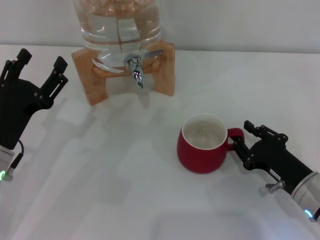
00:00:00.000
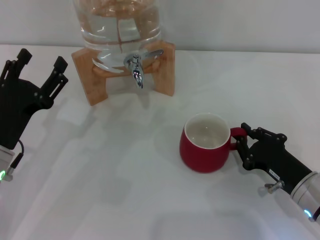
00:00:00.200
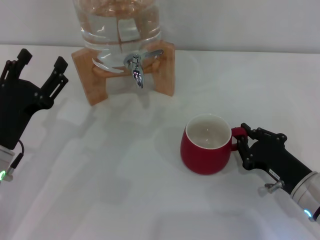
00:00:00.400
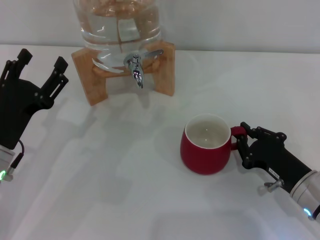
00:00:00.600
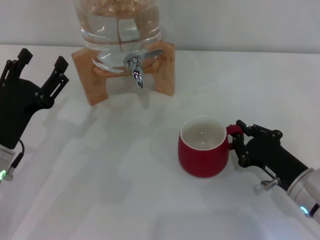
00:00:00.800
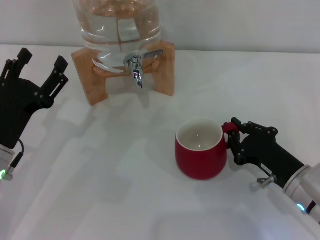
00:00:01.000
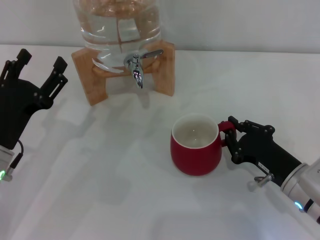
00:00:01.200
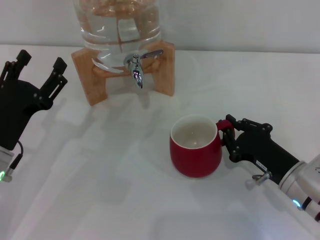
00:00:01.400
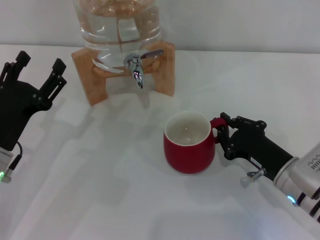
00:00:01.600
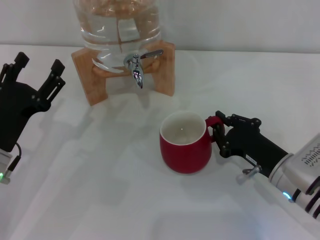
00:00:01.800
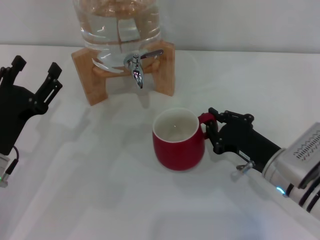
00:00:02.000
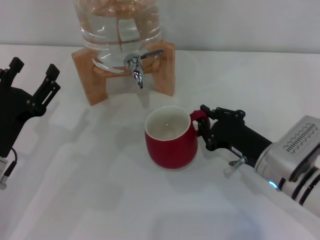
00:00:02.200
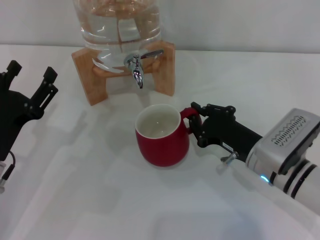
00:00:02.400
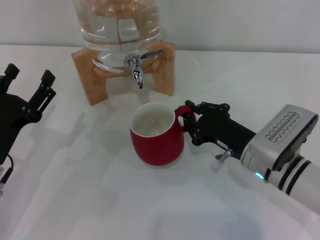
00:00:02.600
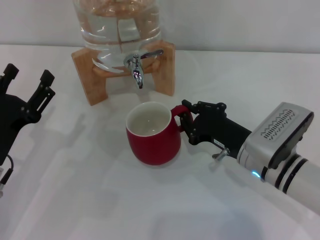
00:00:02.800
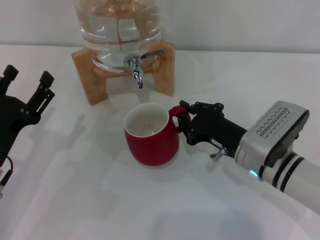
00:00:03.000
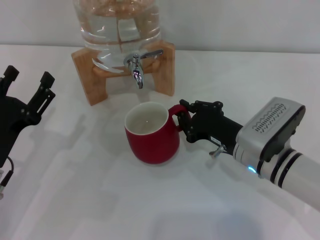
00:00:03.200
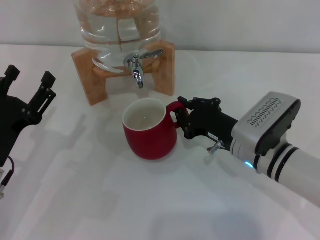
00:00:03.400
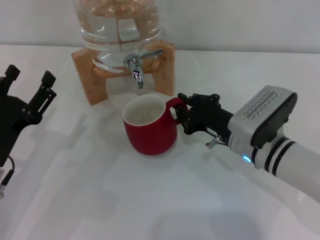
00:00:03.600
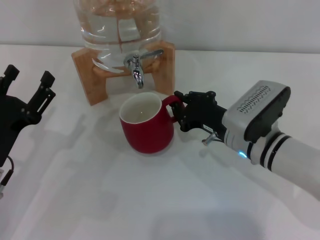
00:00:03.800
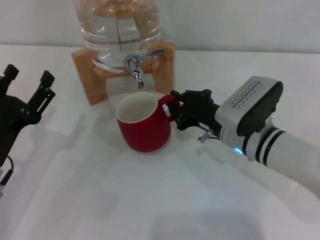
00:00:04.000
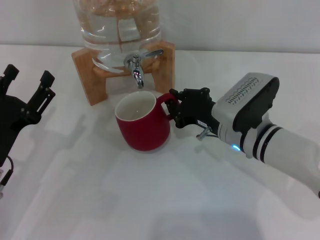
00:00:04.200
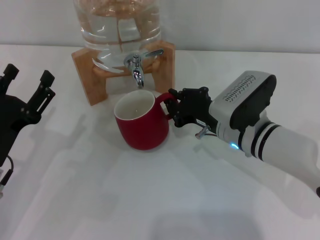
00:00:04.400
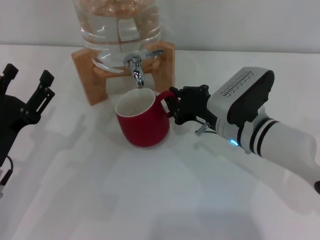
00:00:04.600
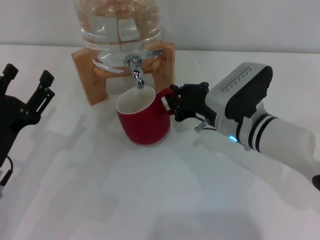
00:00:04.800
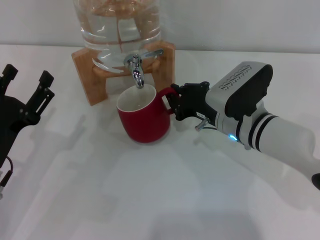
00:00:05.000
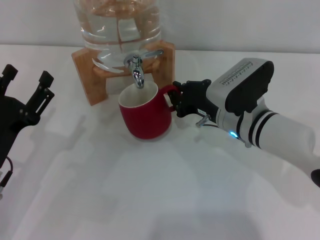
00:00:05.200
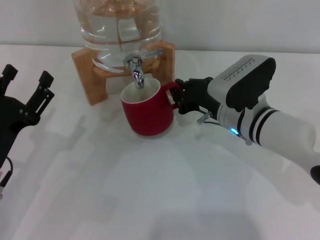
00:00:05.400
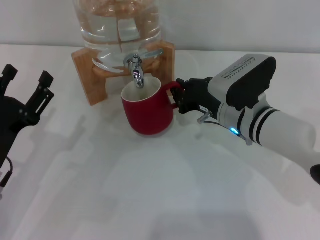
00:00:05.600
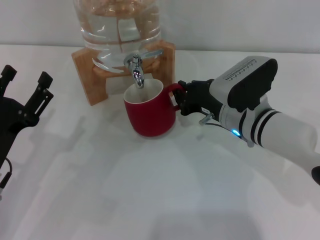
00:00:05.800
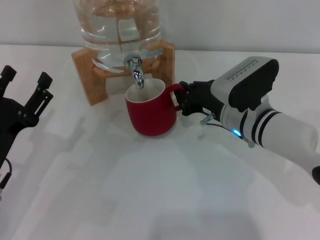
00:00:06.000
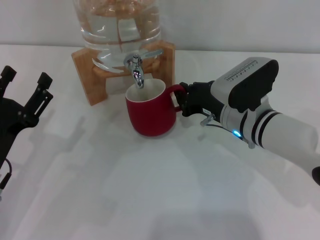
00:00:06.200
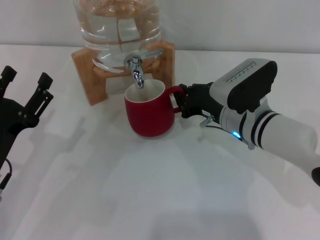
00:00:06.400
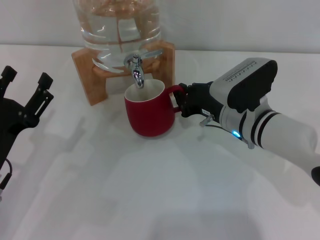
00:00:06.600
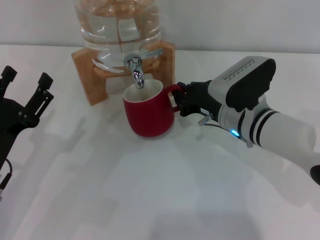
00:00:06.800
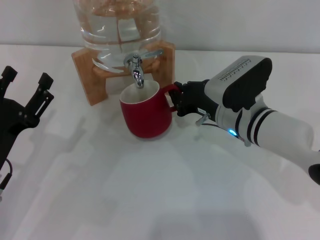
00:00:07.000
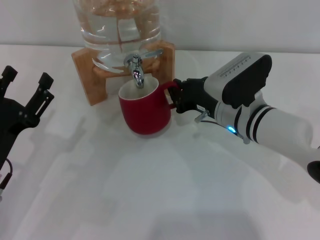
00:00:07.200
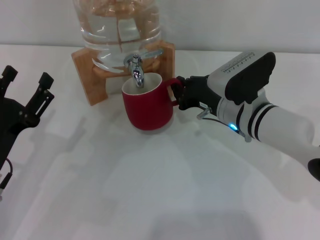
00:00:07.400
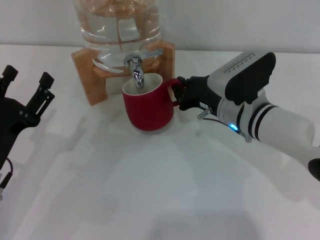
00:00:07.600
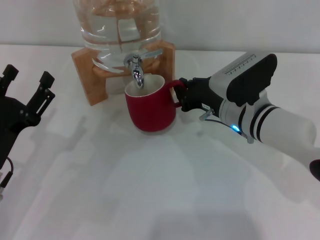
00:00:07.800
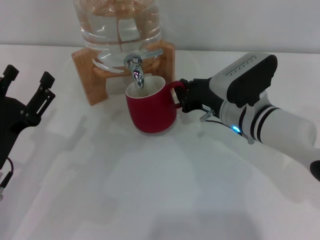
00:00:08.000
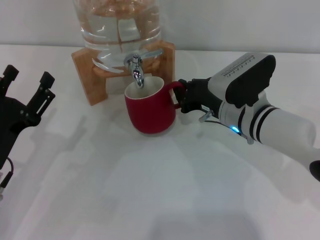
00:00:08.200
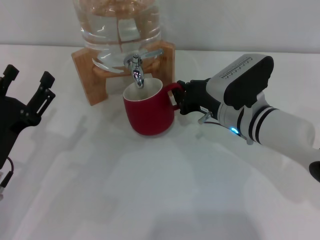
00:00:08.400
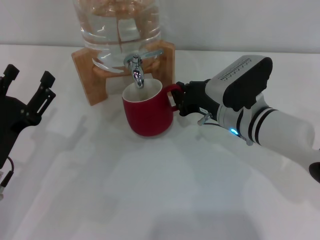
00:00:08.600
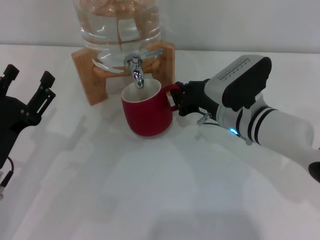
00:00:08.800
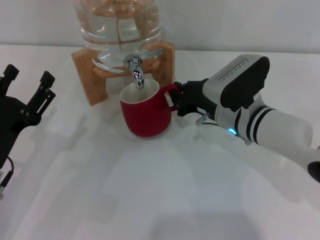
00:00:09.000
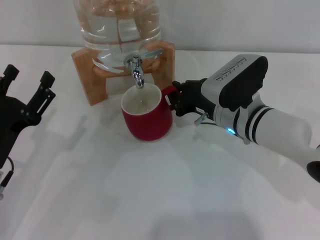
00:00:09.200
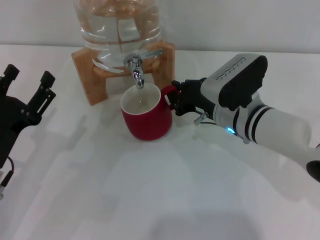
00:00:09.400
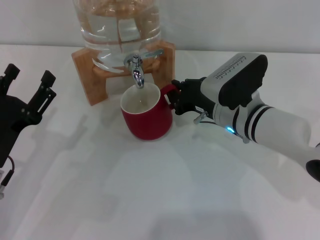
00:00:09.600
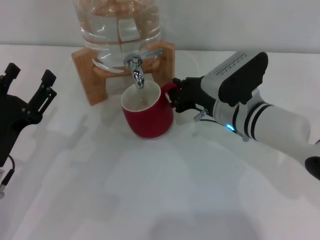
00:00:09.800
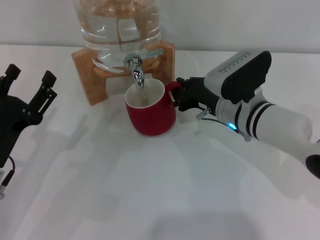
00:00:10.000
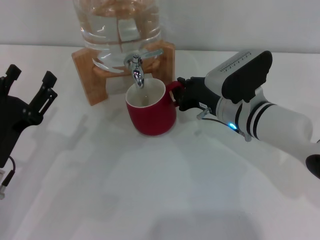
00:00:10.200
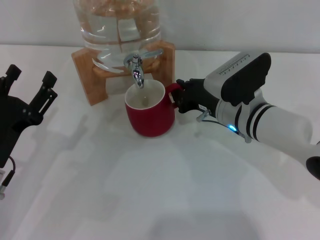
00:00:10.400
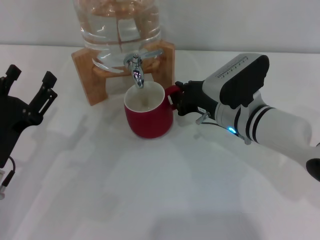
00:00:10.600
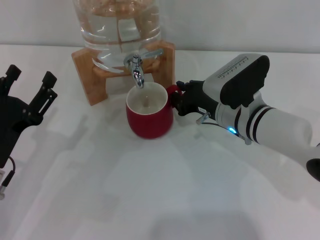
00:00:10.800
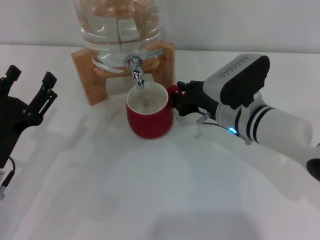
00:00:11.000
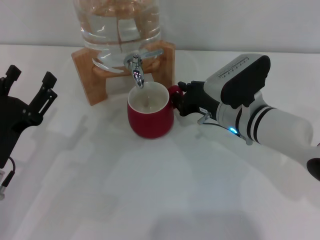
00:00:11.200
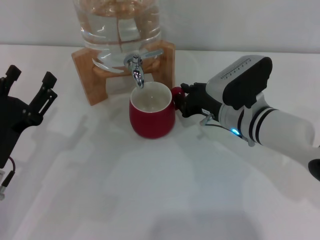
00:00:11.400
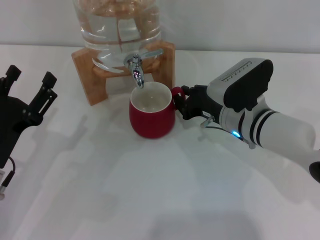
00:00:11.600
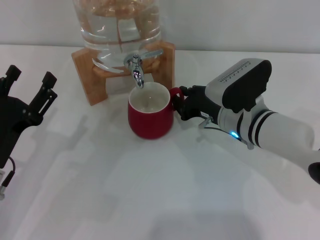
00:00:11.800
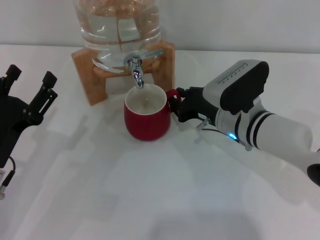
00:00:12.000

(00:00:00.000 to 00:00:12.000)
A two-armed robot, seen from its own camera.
Task of the whole recording: the right gripper pick up the red cup and place it horizontally under the faucet, the left gripper turn on the faucet to fill the cup, and then turn off the faucet.
00:00:00.000 - 00:00:01.600: The right gripper closes up.
00:00:01.600 - 00:00:03.000: The right gripper moves to the left, about 5 cm.
00:00:03.000 - 00:00:04.400: The right gripper shifts by roughly 5 cm.
00:00:04.400 - 00:00:06.000: The grippers move only a little.
00:00:06.000 - 00:00:09.000: Neither gripper changes place.
00:00:09.000 - 00:00:12.000: The two grippers keep their place.

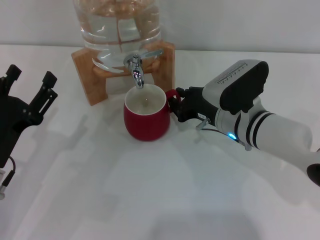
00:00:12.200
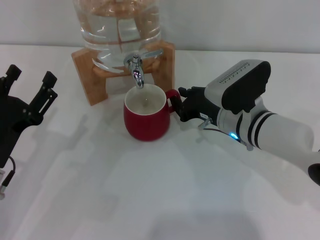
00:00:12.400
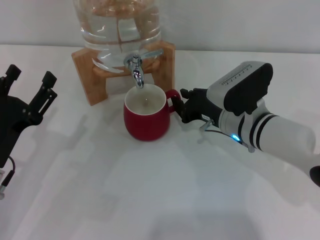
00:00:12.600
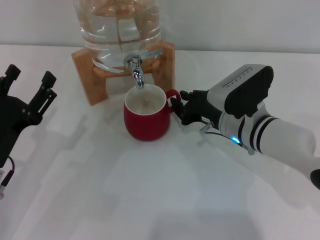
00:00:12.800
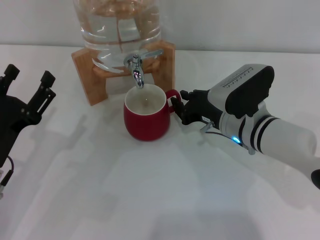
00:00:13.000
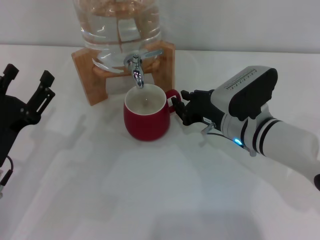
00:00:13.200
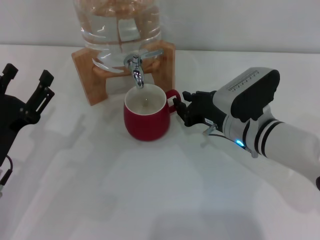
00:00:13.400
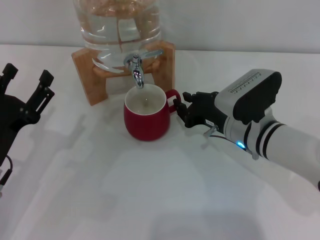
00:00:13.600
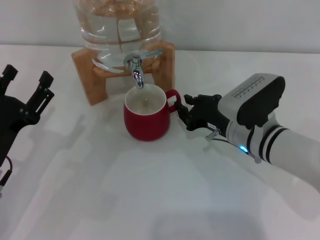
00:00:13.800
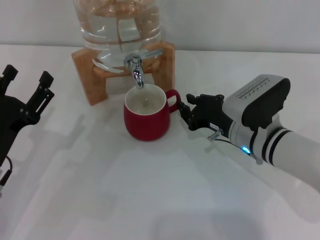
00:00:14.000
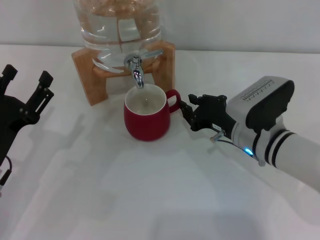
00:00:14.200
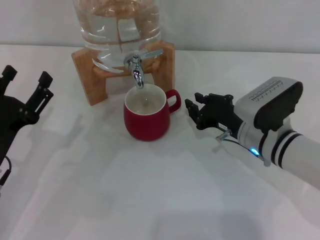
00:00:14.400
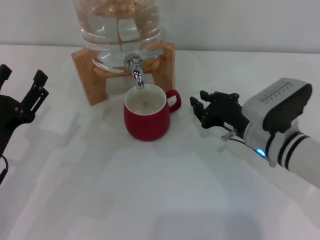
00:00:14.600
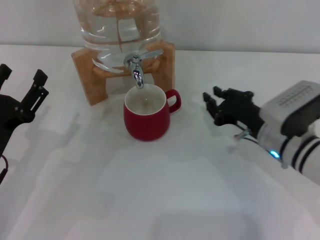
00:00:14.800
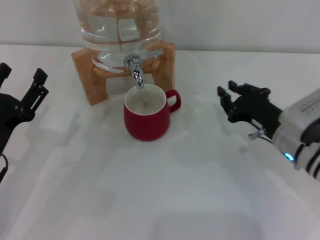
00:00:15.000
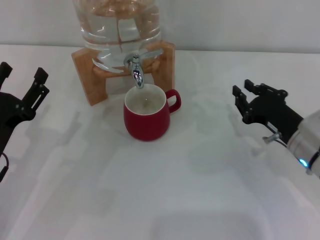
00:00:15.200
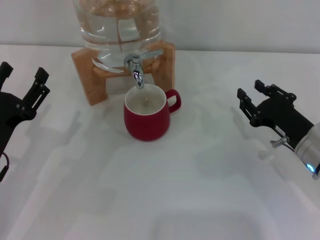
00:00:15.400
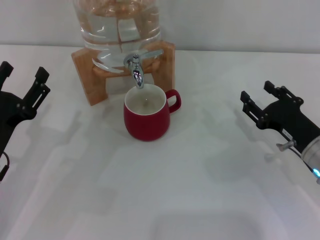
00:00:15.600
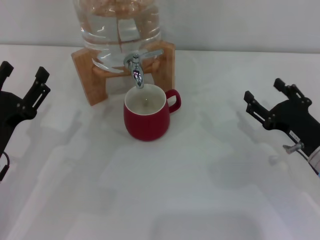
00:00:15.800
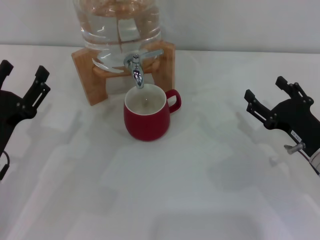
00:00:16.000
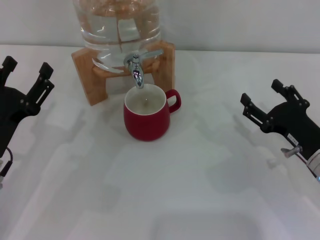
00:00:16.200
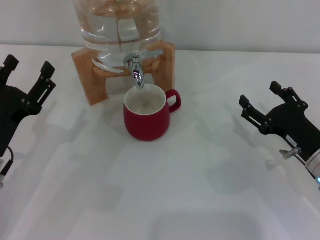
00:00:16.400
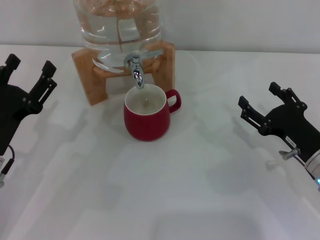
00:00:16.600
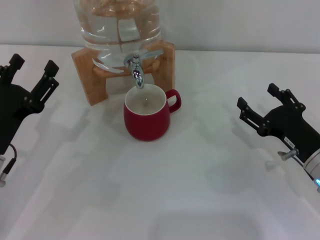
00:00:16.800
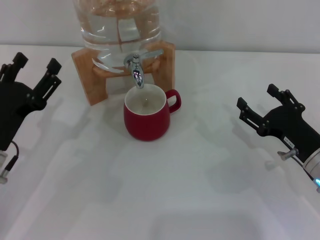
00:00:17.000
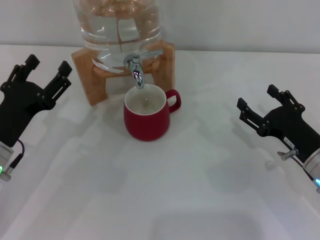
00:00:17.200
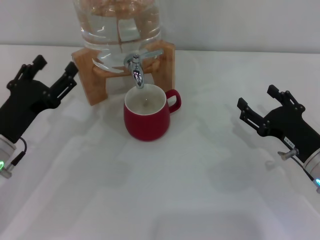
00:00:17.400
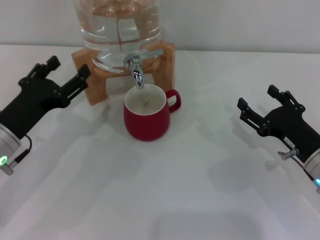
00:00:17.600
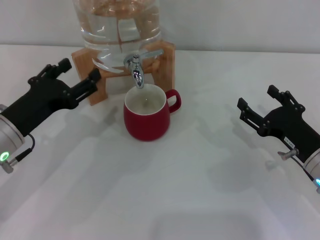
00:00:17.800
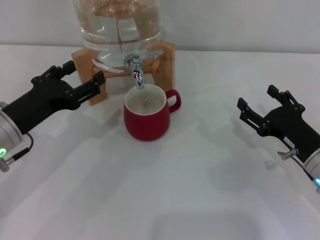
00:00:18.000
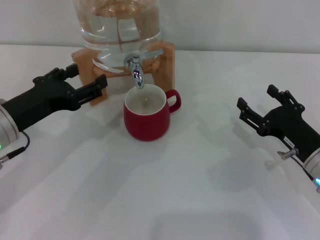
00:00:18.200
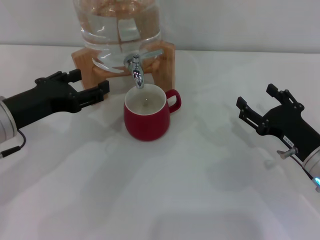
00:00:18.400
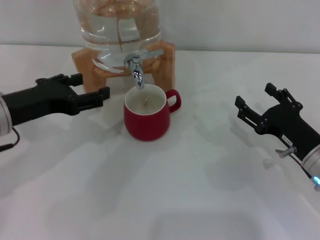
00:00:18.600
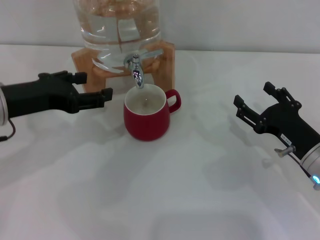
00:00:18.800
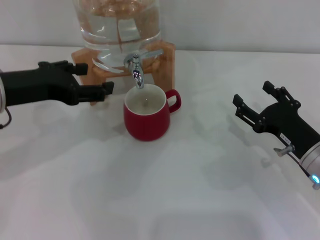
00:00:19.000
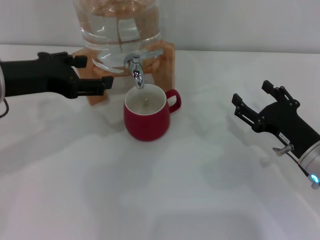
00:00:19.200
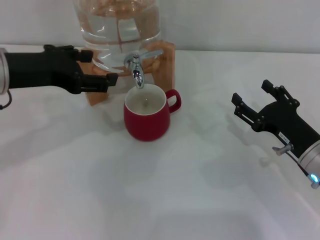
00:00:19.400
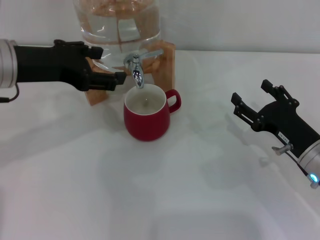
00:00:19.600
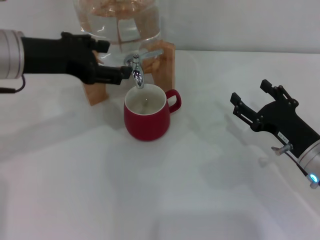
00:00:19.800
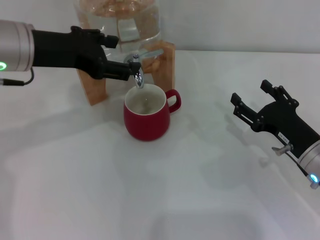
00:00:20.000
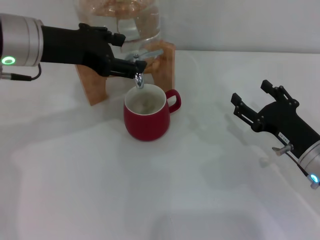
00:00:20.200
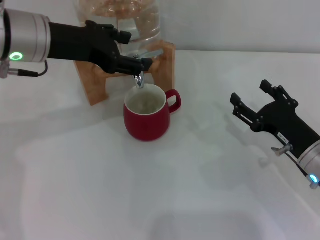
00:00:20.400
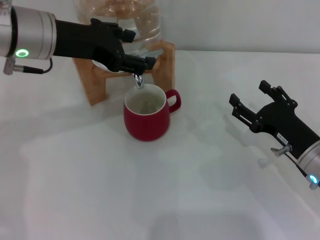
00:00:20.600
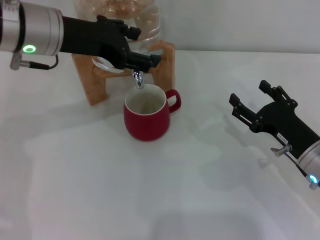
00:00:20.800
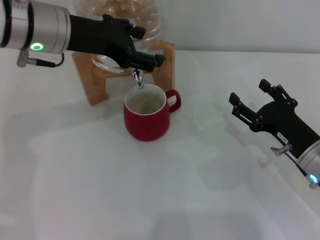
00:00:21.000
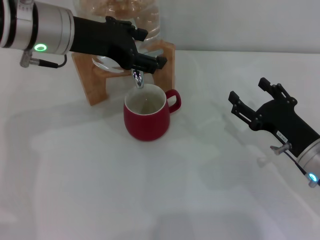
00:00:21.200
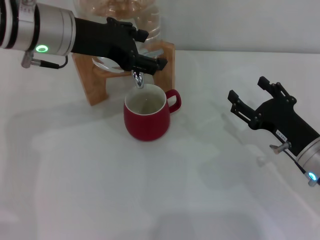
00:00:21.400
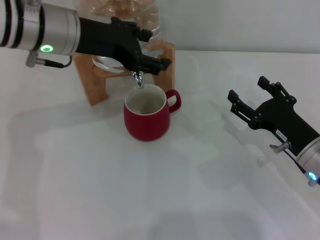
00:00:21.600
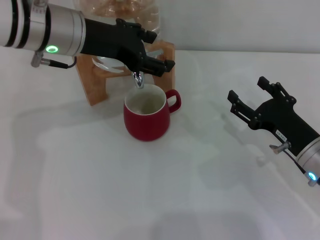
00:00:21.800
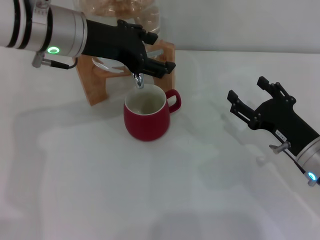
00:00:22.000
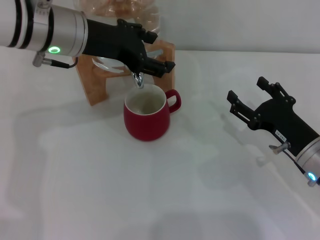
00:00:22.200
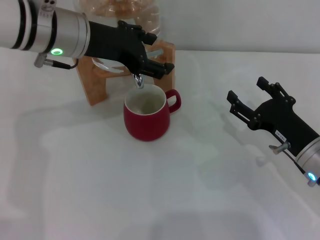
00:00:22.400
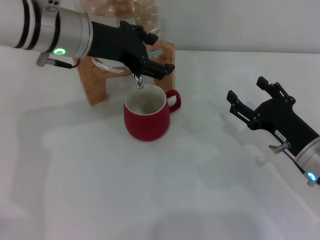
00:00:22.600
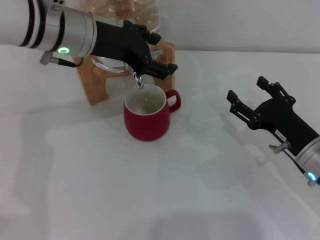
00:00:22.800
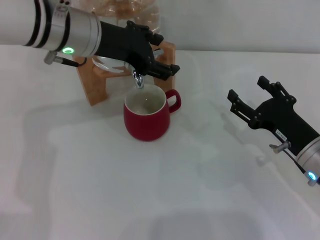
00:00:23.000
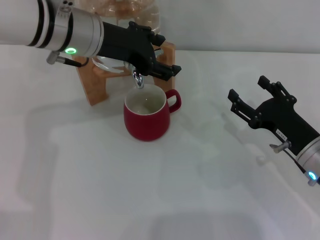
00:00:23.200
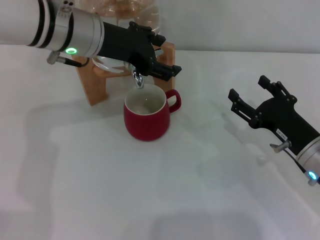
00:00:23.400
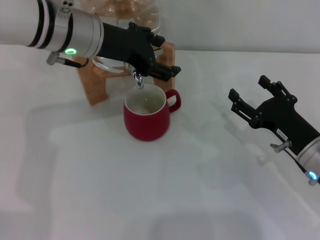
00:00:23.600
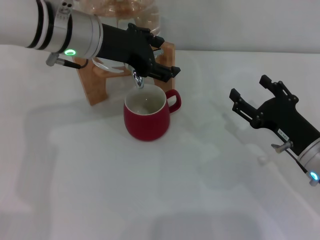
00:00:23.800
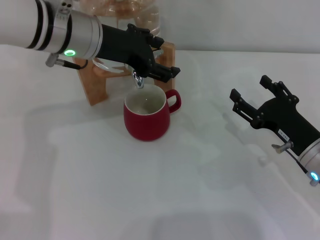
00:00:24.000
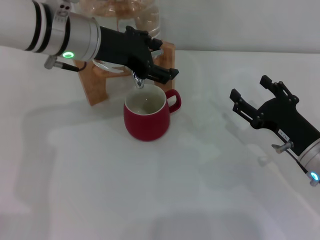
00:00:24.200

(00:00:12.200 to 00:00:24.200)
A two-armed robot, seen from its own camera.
Task of the whole recording: the right gripper pick up the red cup and place it horizontally under the faucet, the left gripper turn on the faucet to fill the cup, and then turn off the faucet.
00:00:12.200 - 00:00:13.800: There are only small adjustments of the grippers.
00:00:13.800 - 00:00:15.200: The right gripper heads to the right, covering some 10 cm.
00:00:15.200 - 00:00:16.600: The right gripper opens.
00:00:16.600 - 00:00:18.200: The left gripper goes roughly 5 cm upward.
00:00:18.200 - 00:00:19.800: The left gripper is displaced upward and forward by roughly 10 cm.
00:00:19.800 - 00:00:21.200: The left gripper moves approximately 5 cm.
00:00:21.200 - 00:00:24.200: The grippers make only small movements.
